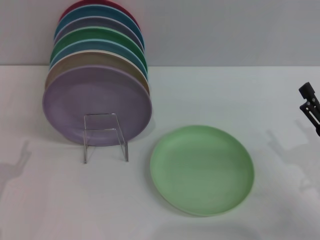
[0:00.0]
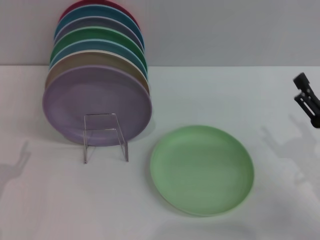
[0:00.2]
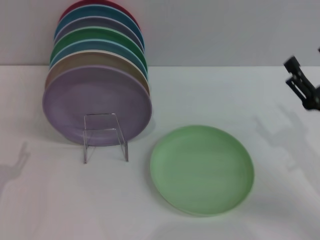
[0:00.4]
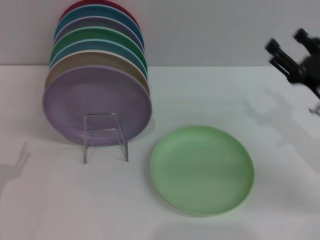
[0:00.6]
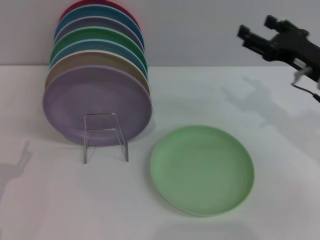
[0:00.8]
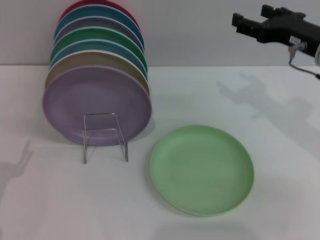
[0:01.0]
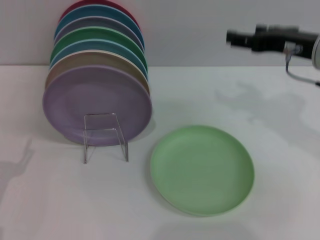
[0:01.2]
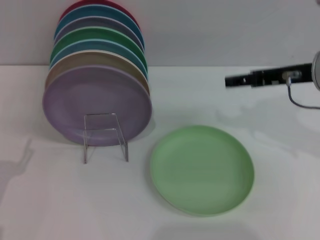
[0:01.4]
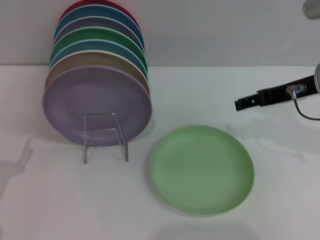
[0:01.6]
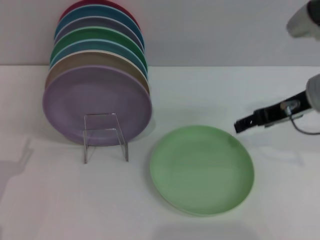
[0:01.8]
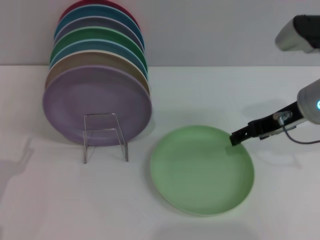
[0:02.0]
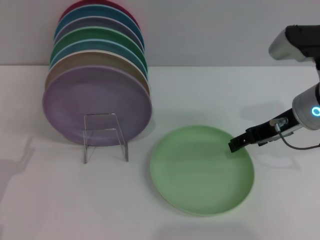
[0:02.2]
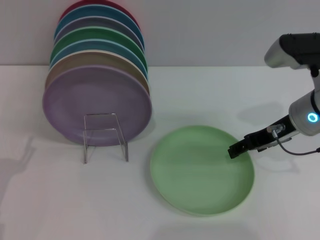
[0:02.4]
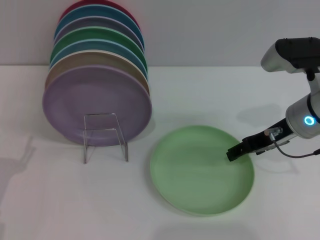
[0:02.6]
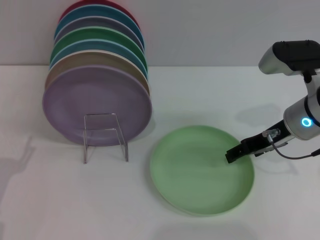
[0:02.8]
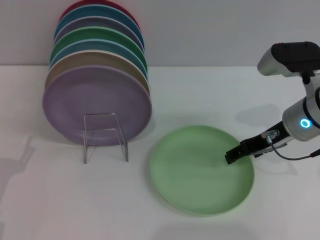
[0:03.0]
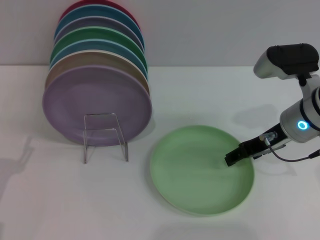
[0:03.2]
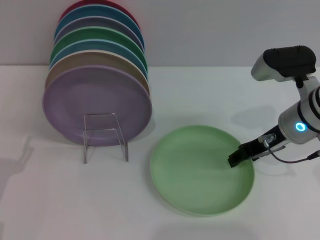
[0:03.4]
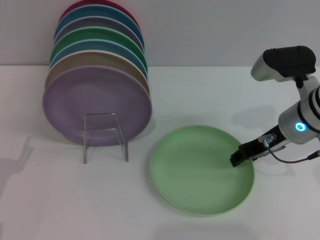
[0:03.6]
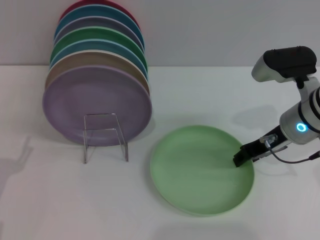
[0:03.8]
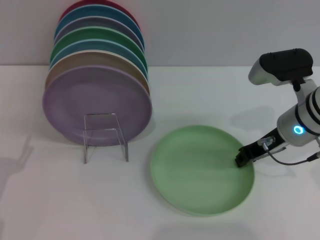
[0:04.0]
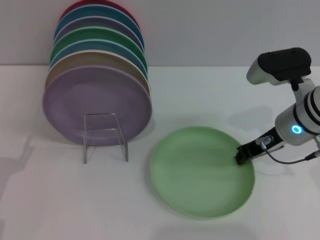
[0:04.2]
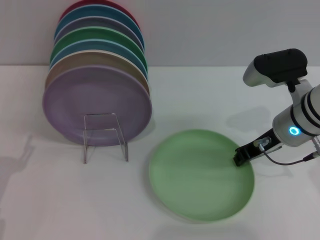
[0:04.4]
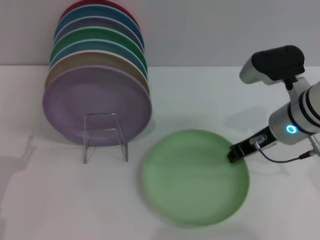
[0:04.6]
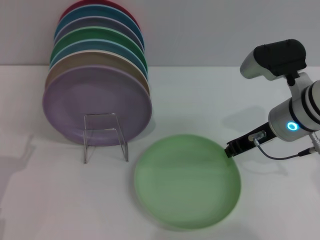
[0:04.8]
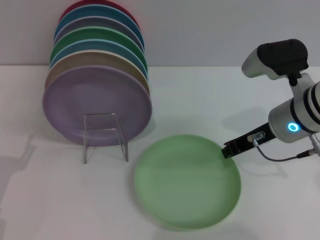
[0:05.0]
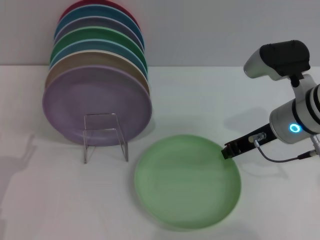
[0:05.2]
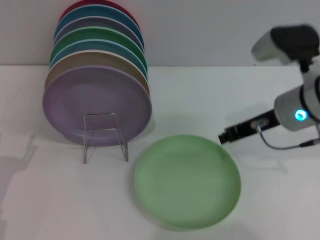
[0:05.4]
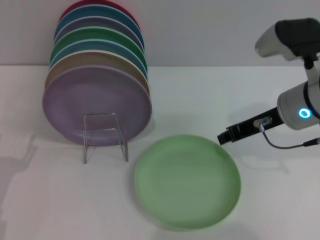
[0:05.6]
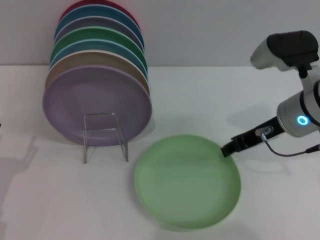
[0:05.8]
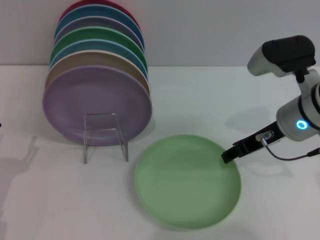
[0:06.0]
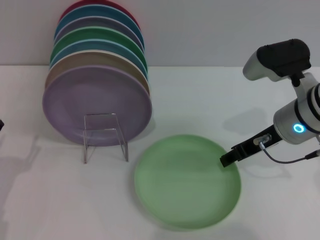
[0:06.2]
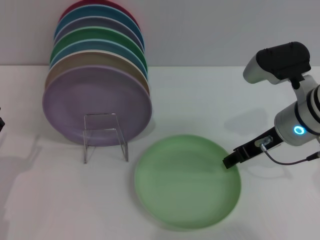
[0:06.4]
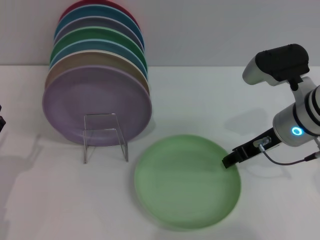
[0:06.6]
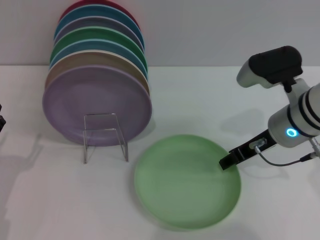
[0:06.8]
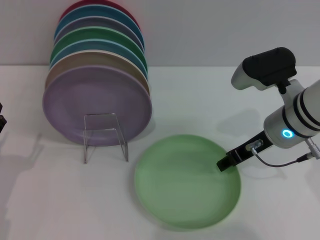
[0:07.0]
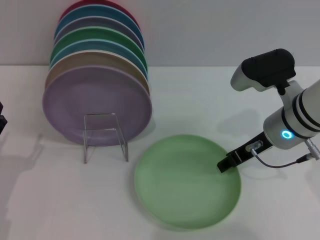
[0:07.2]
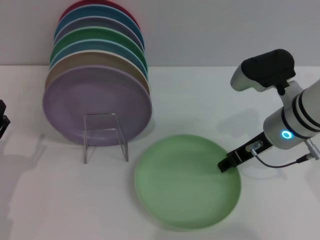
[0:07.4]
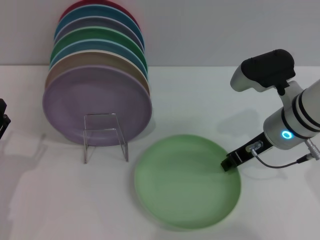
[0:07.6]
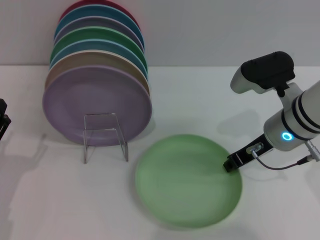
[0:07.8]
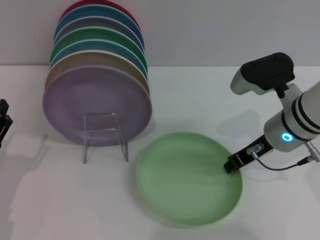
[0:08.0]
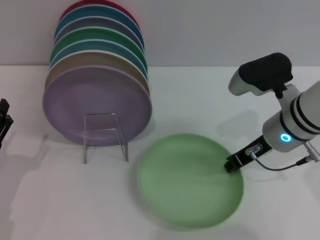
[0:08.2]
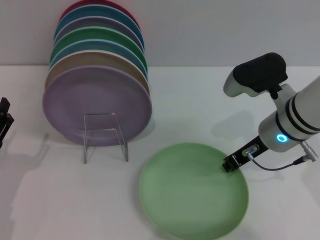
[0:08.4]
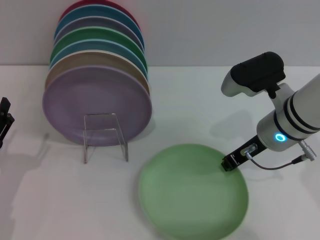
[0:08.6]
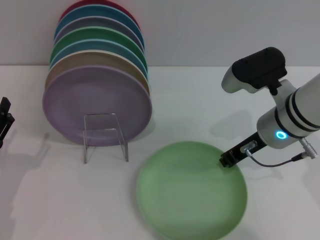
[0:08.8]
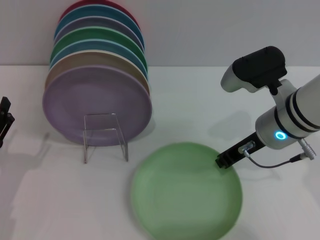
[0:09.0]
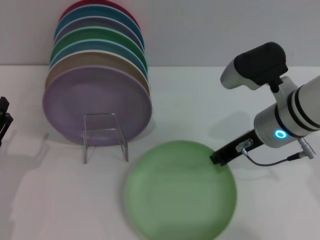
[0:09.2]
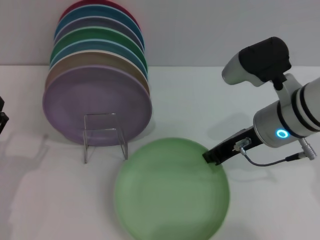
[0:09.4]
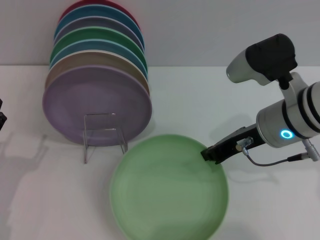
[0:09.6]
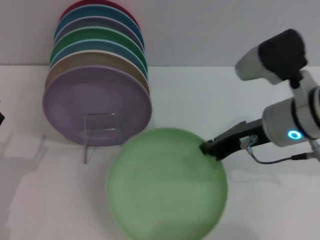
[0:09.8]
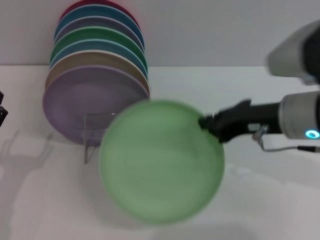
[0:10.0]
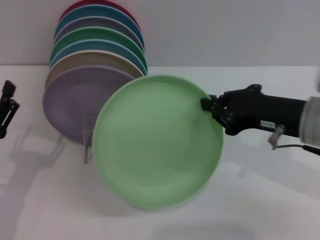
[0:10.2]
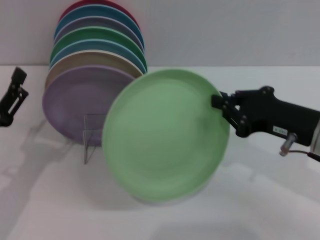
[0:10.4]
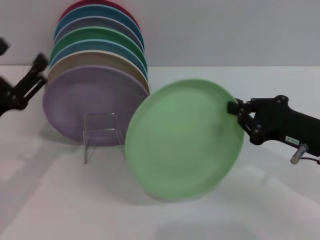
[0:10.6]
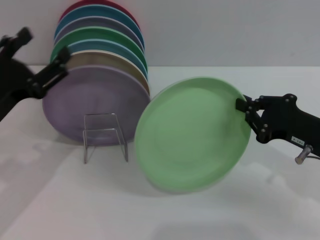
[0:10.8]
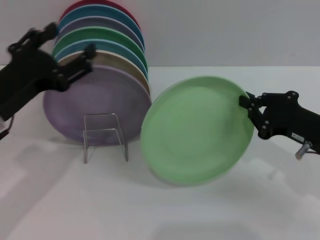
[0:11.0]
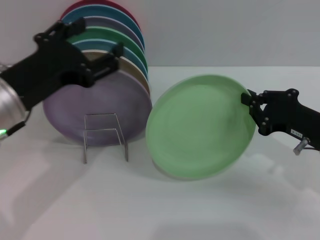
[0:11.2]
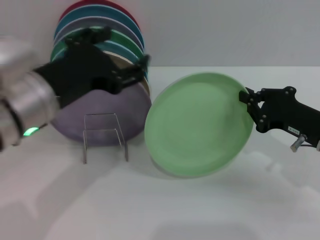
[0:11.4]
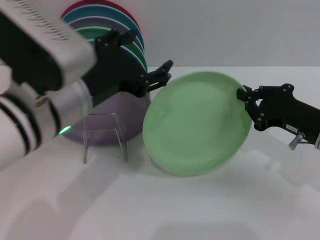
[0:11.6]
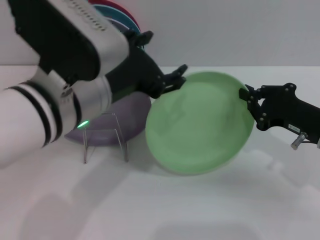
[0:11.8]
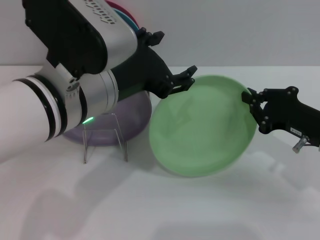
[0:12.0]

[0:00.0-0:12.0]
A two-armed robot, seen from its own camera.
Task of the whole recording: Grip the plate with one hand, pass it to the other, then set it on the shelf.
Step, 0:00.0 to 0:10.0: Pick up the plate with the right gripper.
0:00.0 to 0:01.6: The right gripper is displaced upward, forward and to the left by roughly 20 cm.
0:01.6 to 0:03.0: The right gripper heads downward, covering roughly 5 cm.
0:03.0 to 0:04.4: The right gripper closes its fingers.
0:04.4 to 0:06.0: The right gripper opens its fingers.
0:06.0 to 0:07.6: The grippers make only small movements.
0:07.6 to 0:09.0: The right gripper closes up.
0:09.0 to 0:10.4: The right gripper moves backward and to the right, about 10 cm.
0:10.4 to 0:12.0: The left gripper is displaced to the right and upward by approximately 25 cm; the right gripper moves downward, roughly 5 cm.

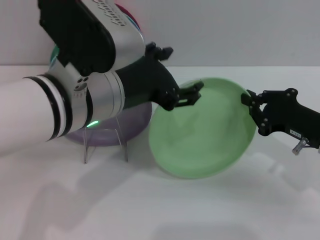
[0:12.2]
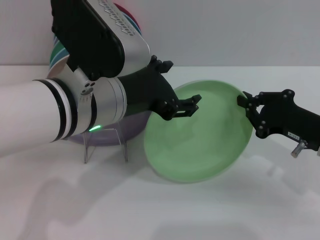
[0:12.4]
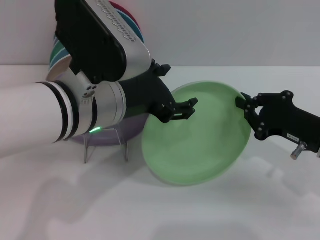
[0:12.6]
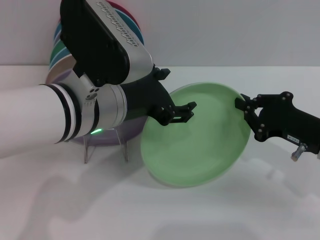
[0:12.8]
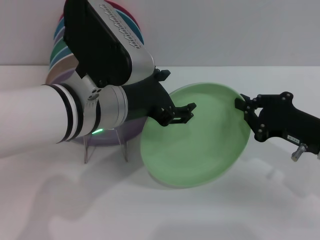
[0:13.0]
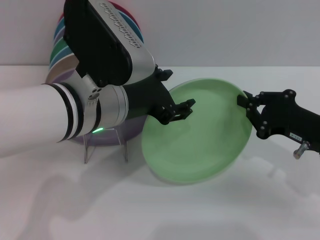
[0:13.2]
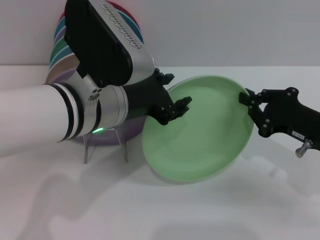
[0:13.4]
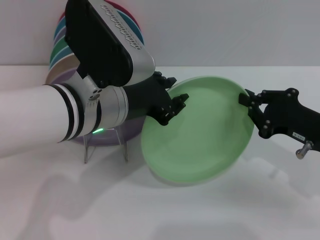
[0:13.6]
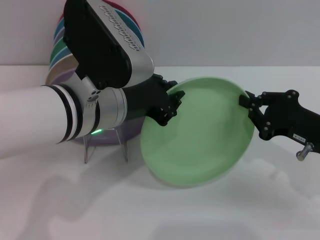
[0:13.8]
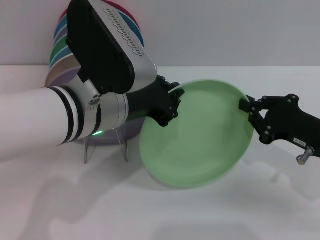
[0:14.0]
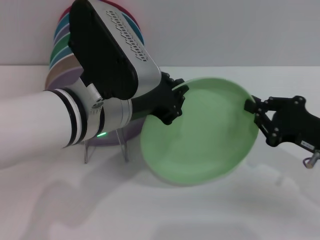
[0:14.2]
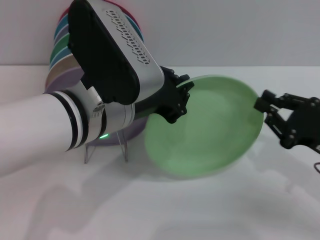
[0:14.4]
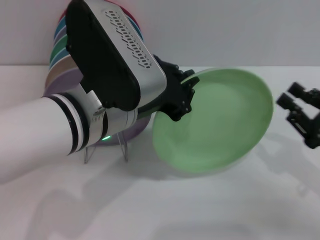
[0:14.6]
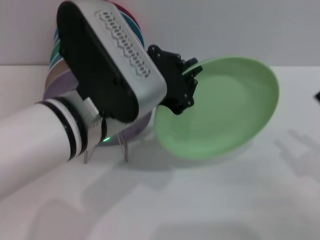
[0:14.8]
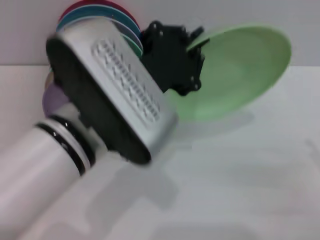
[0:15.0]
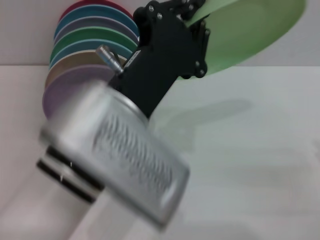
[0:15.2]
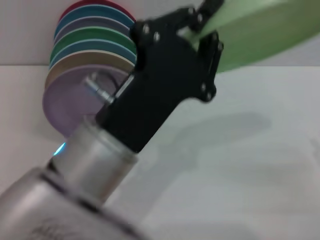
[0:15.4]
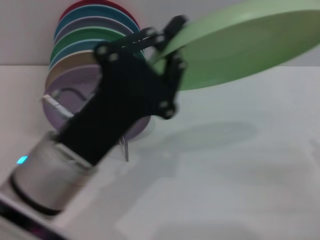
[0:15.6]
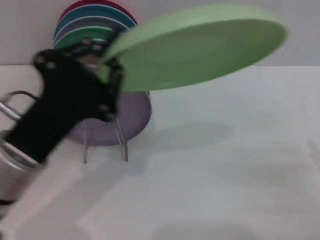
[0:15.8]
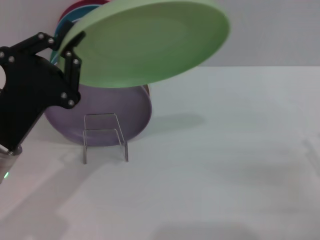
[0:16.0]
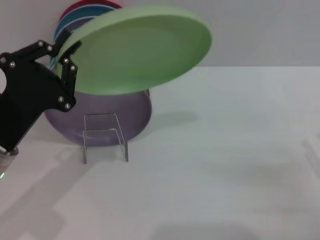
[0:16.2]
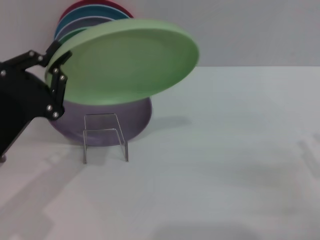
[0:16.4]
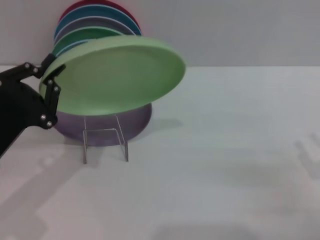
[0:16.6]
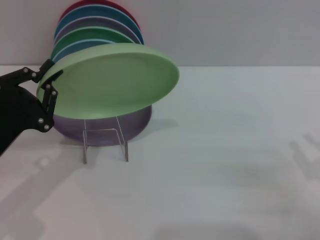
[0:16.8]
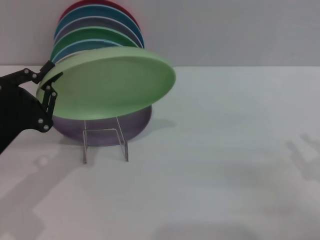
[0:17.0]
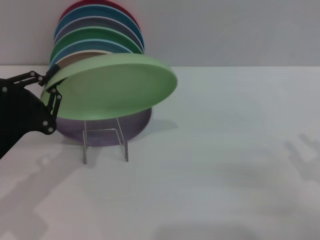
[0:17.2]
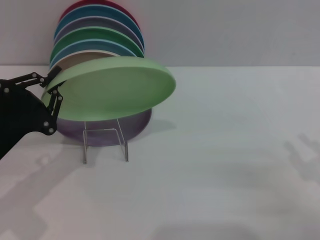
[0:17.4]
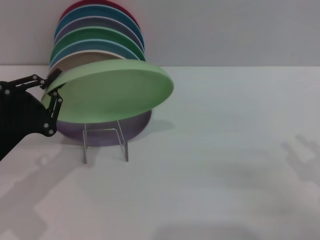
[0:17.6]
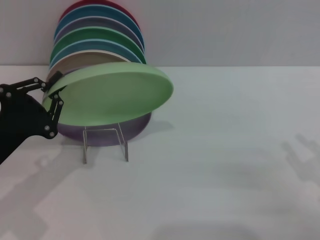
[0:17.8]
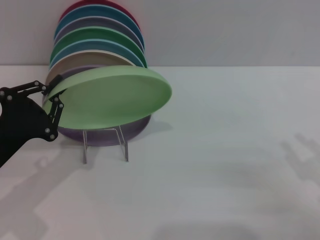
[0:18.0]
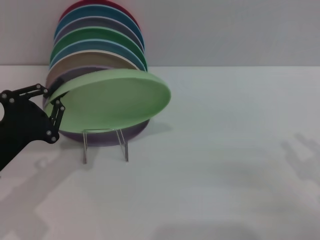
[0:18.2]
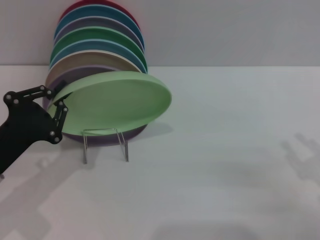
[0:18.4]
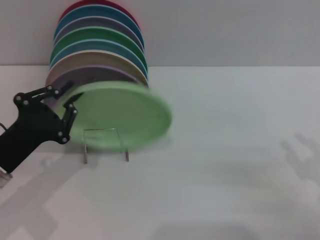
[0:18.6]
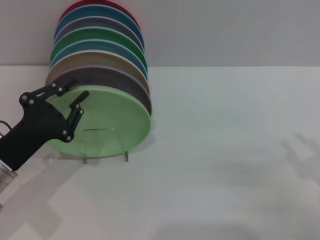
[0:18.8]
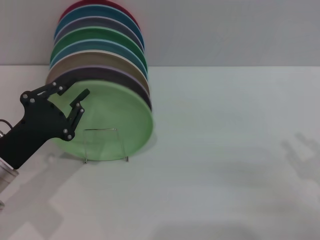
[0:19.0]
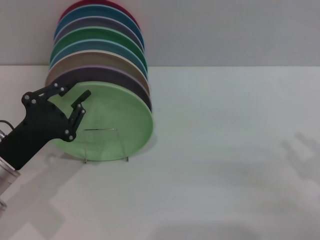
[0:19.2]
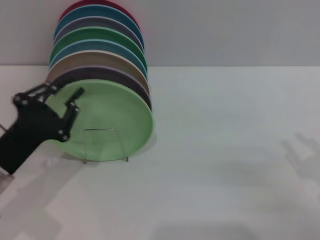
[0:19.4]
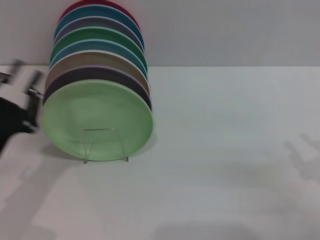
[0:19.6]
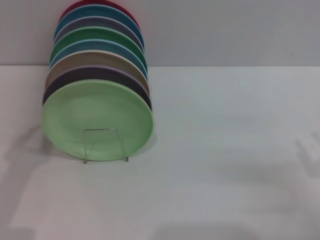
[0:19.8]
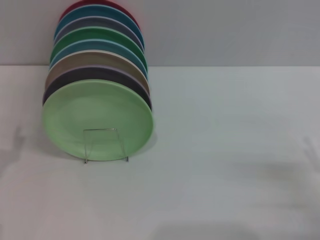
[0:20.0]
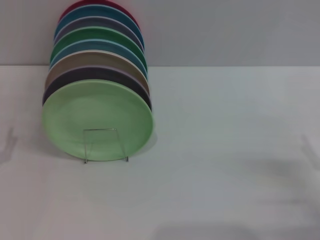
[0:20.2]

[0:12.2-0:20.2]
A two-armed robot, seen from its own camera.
Task of the whole recording: Grip the plate with one hand, pass it to the other, then set it on the shelf.
Step, 0:12.2 to 0:14.6: Pass the plate from the right gripper to the left gripper.
Step, 0:14.8 to 0:19.4: Place the plate on the shelf with the left gripper.
0:12.2 to 0:13.8: The left gripper closes its fingers.
0:13.8 to 0:15.4: The left gripper shifts roughly 10 cm backward, while the right gripper shifts approximately 15 cm backward and to the right, and opens up.
0:15.4 to 0:17.0: The left gripper goes some 20 cm to the left and downward.
0:17.0 to 0:18.6: There are only small adjustments of the grippers.
0:18.6 to 0:20.2: The left gripper heads to the left, covering about 5 cm, and opens.
